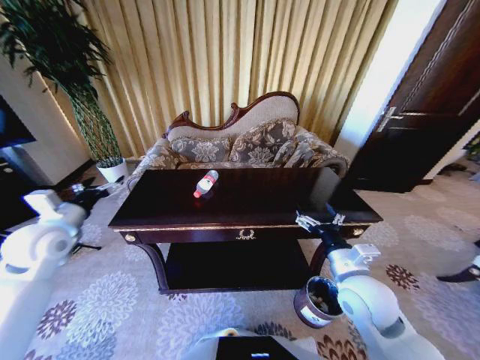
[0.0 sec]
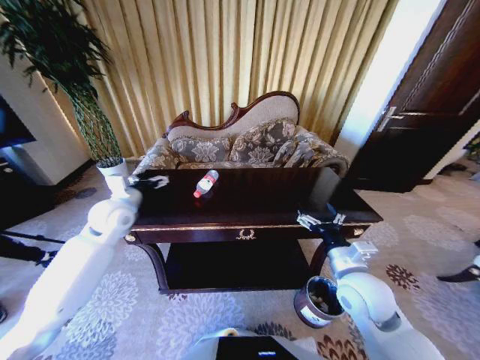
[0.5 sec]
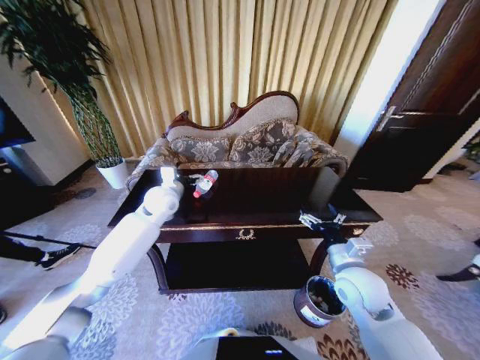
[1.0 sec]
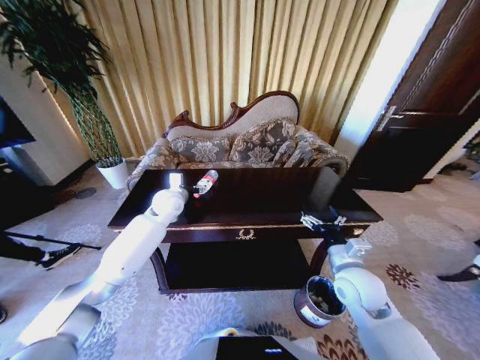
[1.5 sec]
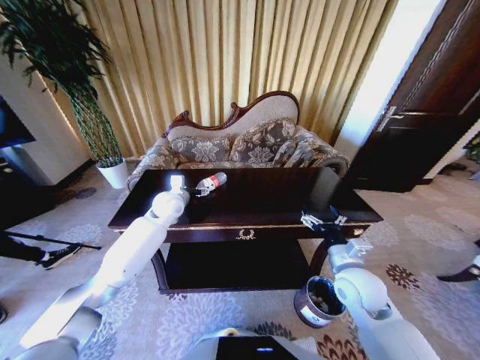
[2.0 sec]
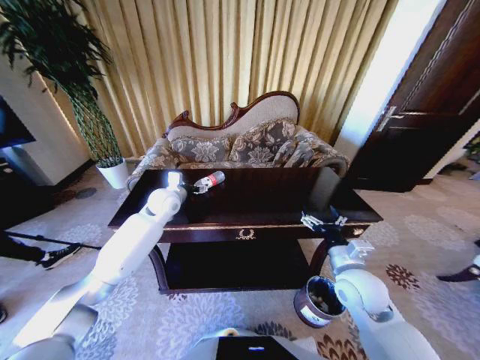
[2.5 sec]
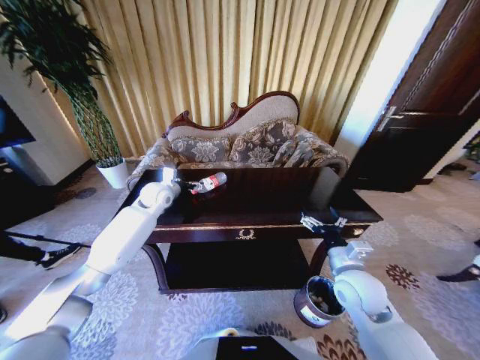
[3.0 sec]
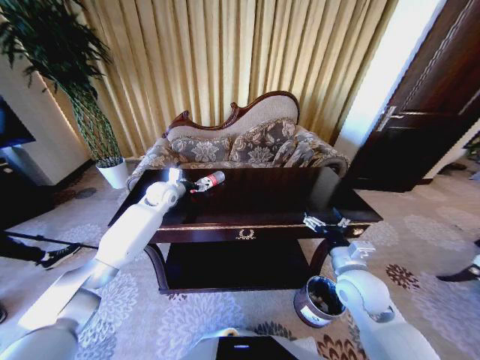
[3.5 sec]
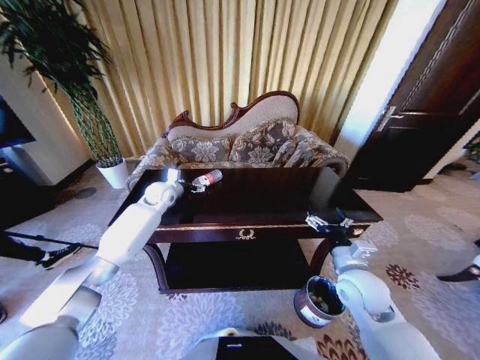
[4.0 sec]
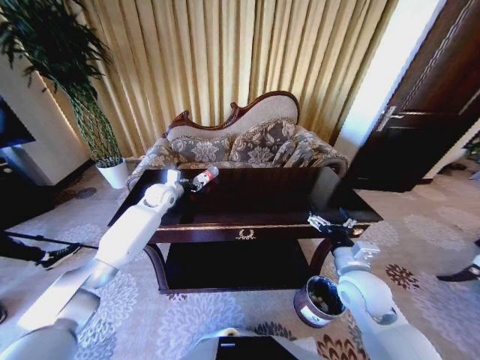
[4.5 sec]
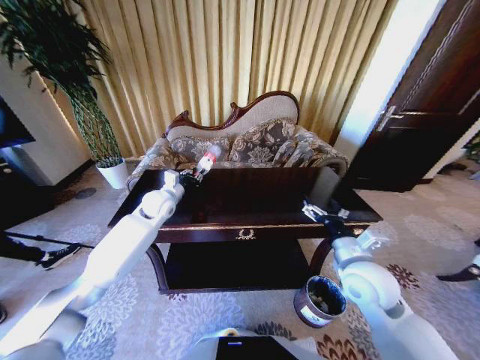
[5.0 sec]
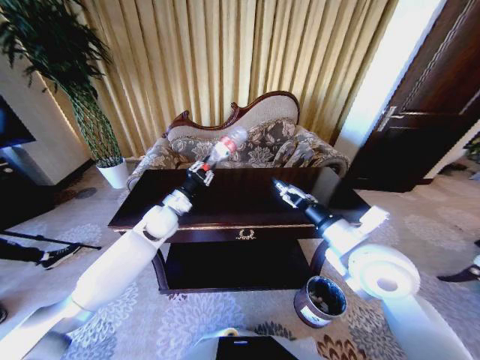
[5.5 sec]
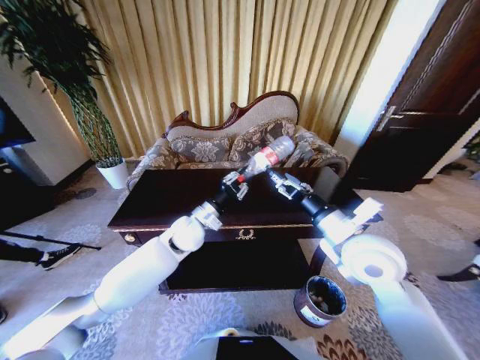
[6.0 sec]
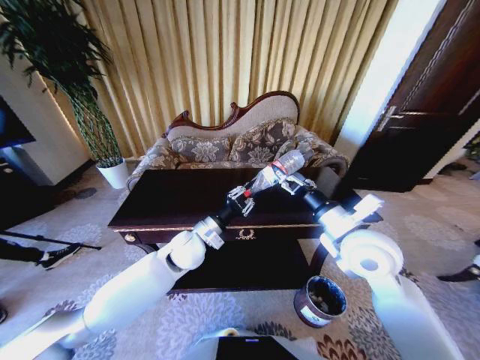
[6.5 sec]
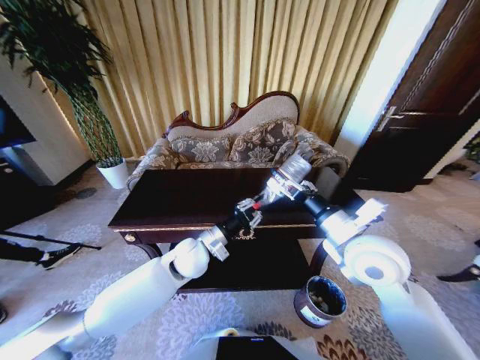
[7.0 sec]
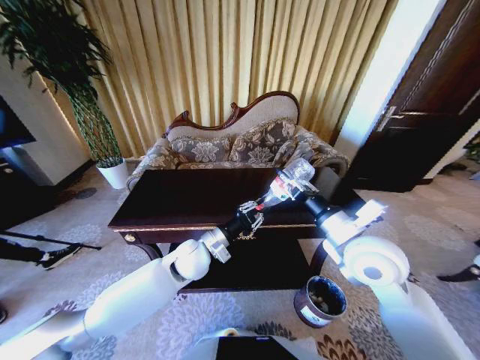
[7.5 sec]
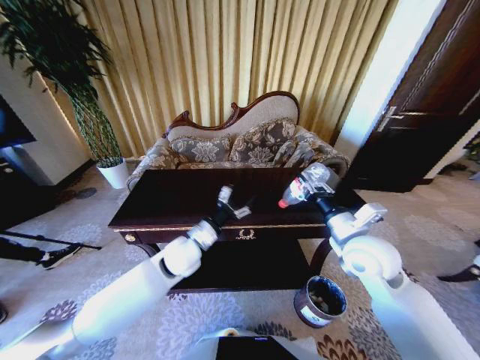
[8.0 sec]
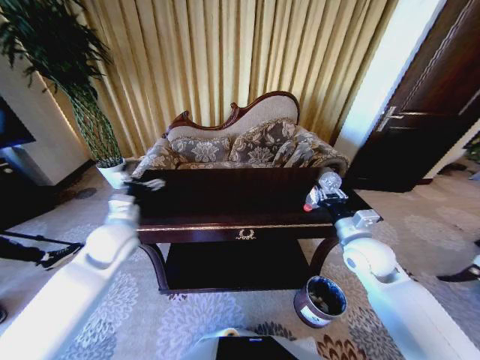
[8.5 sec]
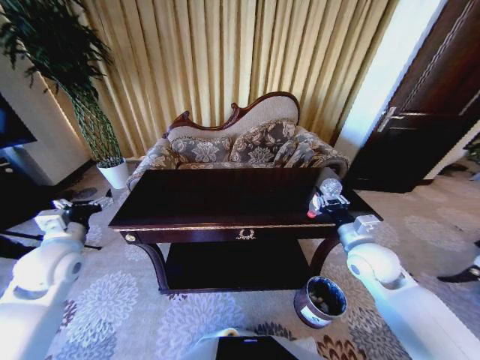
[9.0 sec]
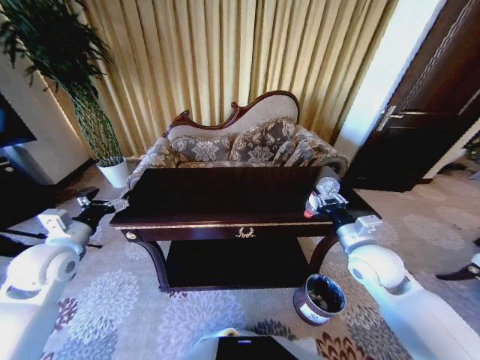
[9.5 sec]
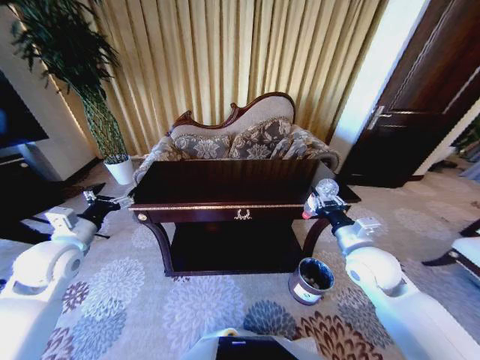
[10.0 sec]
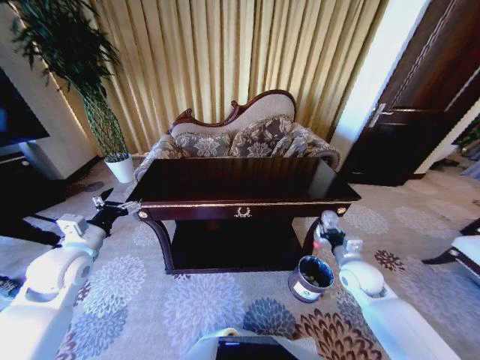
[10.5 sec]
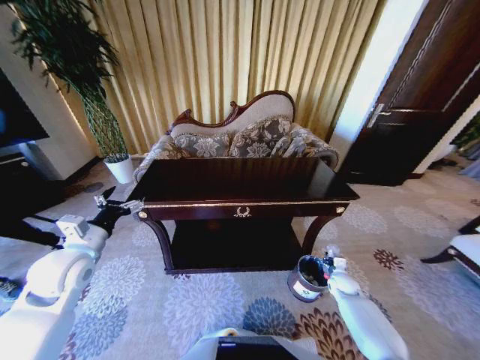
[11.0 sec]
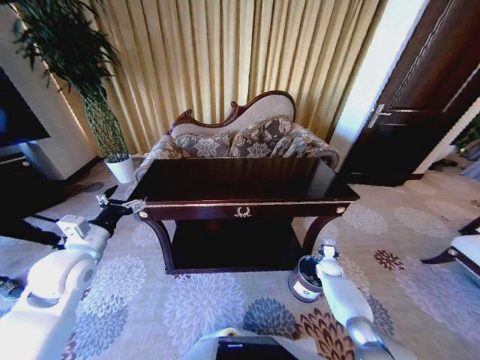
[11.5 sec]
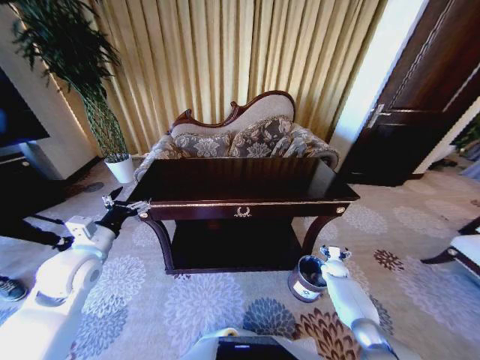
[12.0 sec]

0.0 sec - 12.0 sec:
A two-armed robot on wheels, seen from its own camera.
Task of the whole recording: Move to the front of the table and place the trash on the table into the trash bin.
0.0 sec - 2.0 sec: The right gripper ends up roughly 5 cm from where it was. Meanwhile the left gripper heads to the right and forward, covering roughly 30 cm.
2.0 sec - 4.0 sec: The left gripper heads forward, covering approximately 5 cm.
4.0 sec - 6.0 sec: The left gripper goes some 20 cm backward and to the right, and closes its fingers; the right gripper shifts roughly 15 cm upward.
6.0 sec - 8.0 sec: The left gripper is displaced backward by about 5 cm, and opens its fingers. Meanwhile the right gripper ends up roughly 5 cm from where it was, and closes up.
8.0 sec - 10.0 sec: The left gripper shifts some 25 cm to the left, and opens its fingers; the right gripper changes place by some 5 cm.
10.0 sec - 12.0 sec: The right gripper heads downward, covering some 30 cm, and opens up. The left gripper shifts by roughly 5 cm.

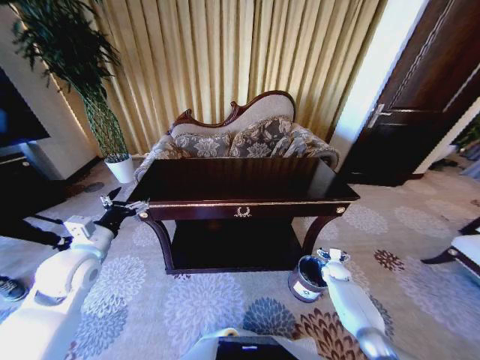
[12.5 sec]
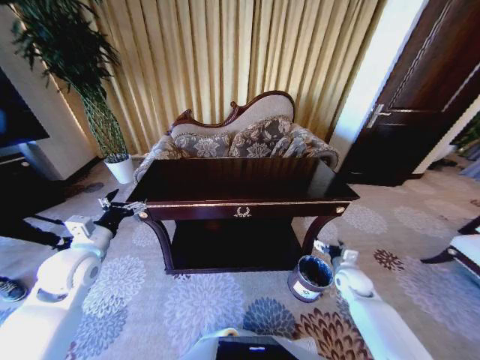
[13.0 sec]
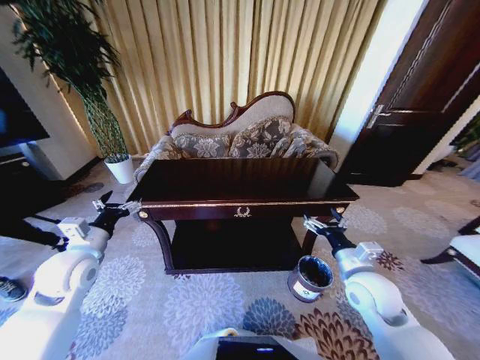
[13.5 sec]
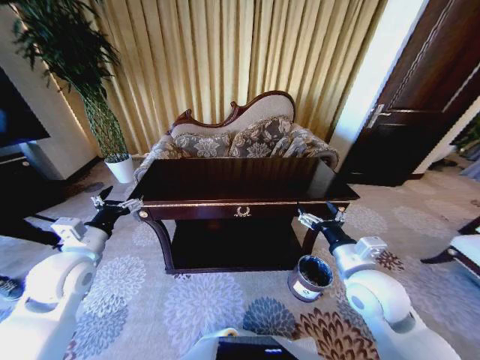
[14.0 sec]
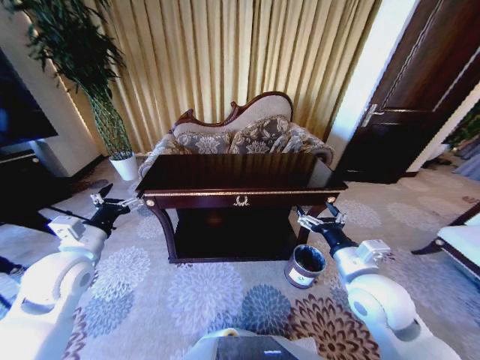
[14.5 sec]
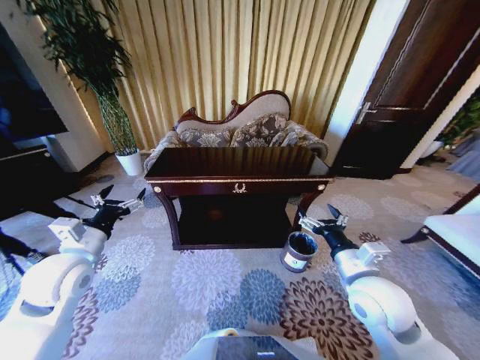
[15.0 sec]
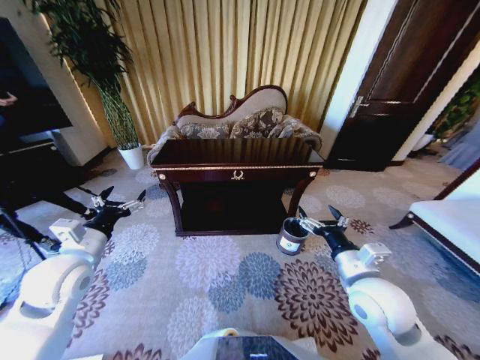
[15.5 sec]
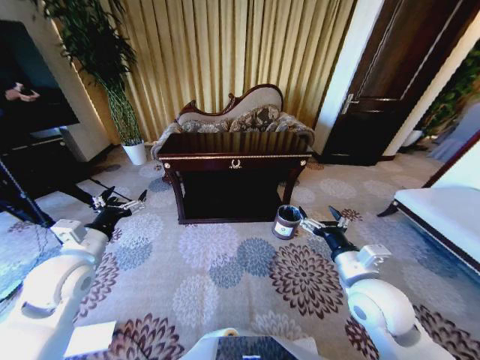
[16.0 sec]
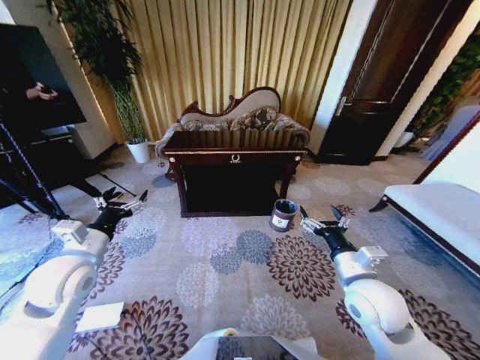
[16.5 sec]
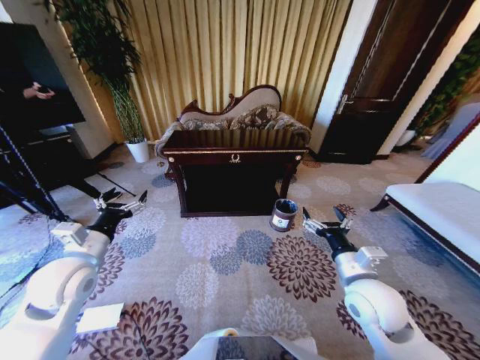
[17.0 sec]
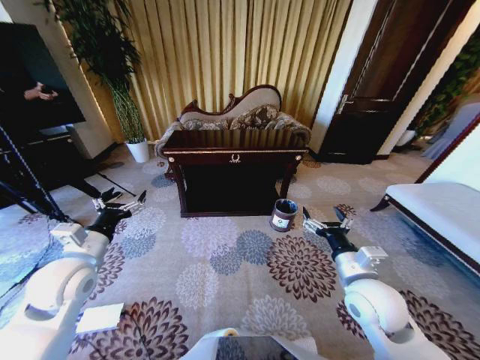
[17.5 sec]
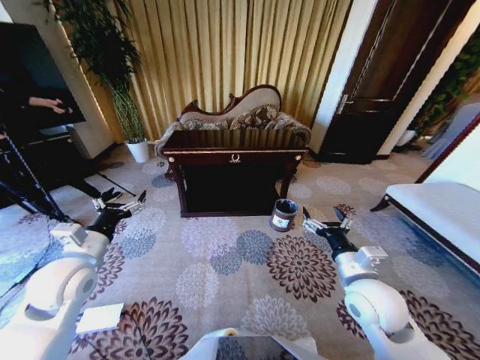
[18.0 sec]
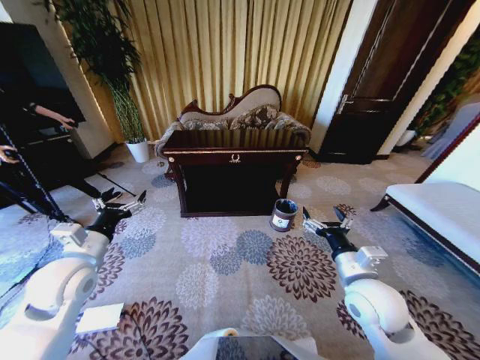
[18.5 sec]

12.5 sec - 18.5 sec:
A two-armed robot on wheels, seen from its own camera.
Task of the whole recording: Move to the front of the table and place the trash on the table into the trash bin.
12.5 sec - 14.5 sec: The right gripper shifts roughly 40 cm upward, backward and to the left.
16.5 sec - 18.5 sec: Neither gripper changes place.
